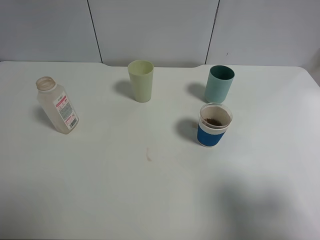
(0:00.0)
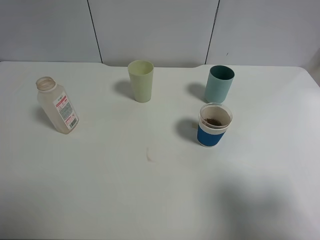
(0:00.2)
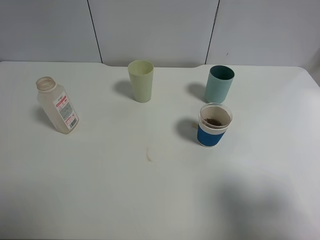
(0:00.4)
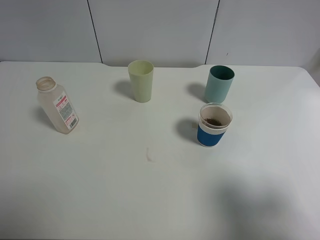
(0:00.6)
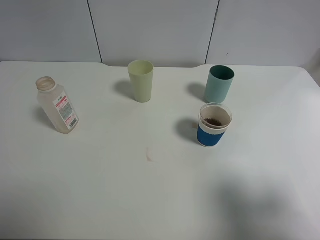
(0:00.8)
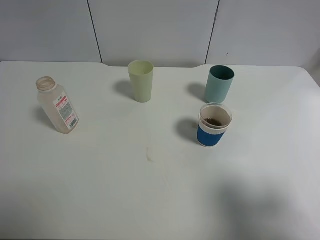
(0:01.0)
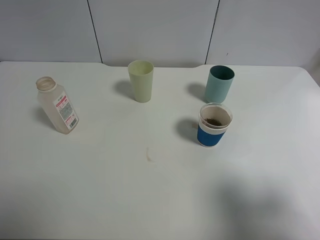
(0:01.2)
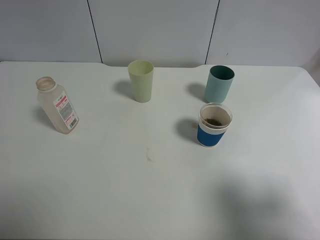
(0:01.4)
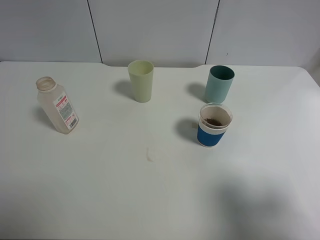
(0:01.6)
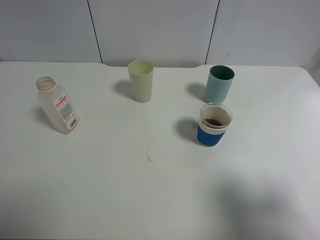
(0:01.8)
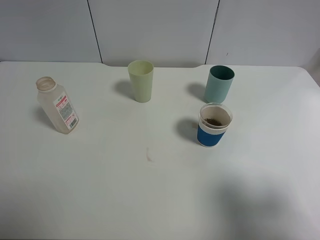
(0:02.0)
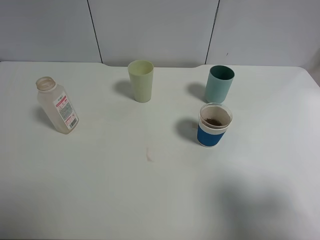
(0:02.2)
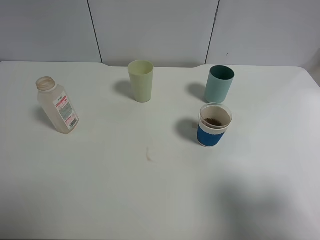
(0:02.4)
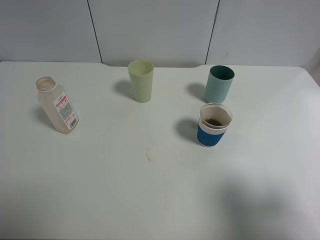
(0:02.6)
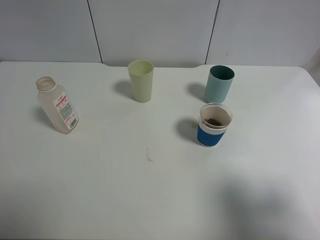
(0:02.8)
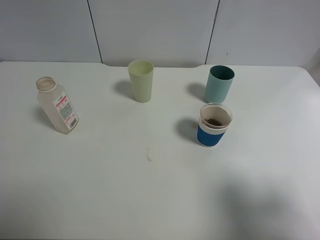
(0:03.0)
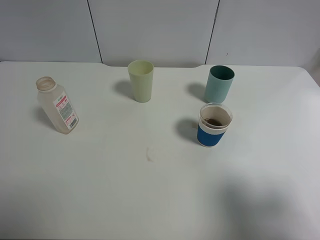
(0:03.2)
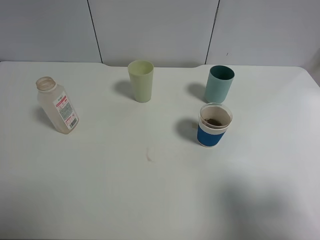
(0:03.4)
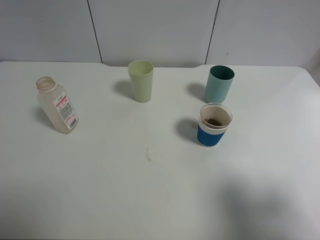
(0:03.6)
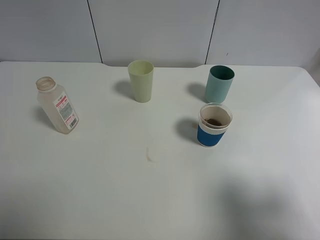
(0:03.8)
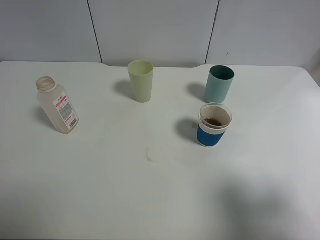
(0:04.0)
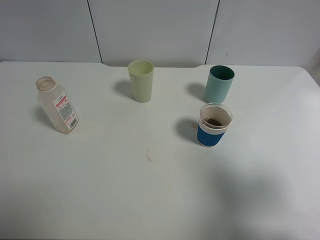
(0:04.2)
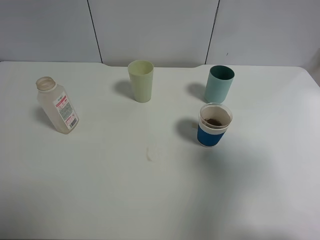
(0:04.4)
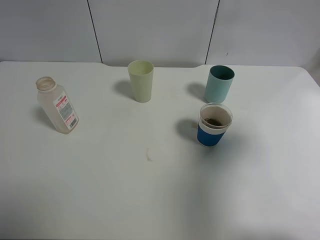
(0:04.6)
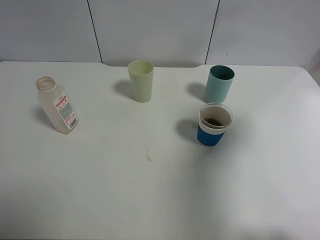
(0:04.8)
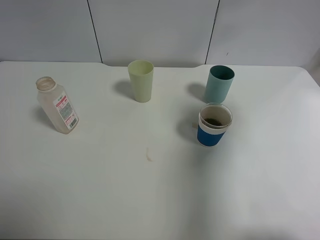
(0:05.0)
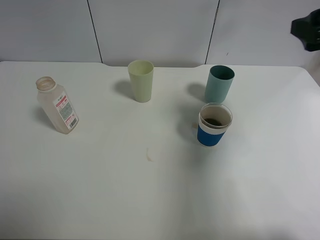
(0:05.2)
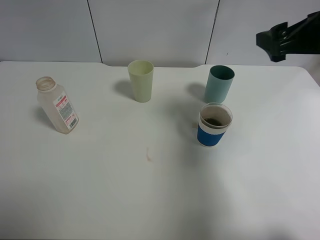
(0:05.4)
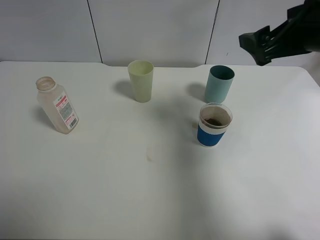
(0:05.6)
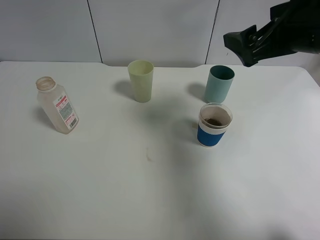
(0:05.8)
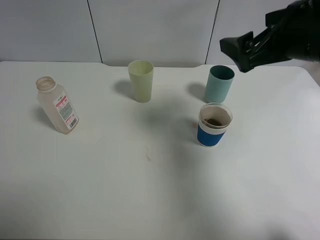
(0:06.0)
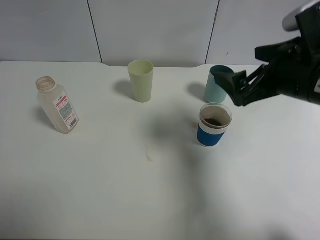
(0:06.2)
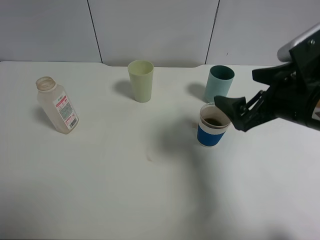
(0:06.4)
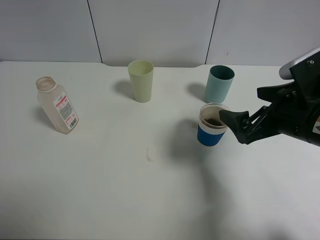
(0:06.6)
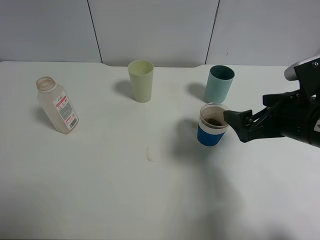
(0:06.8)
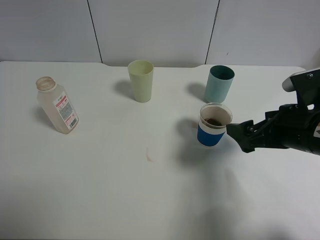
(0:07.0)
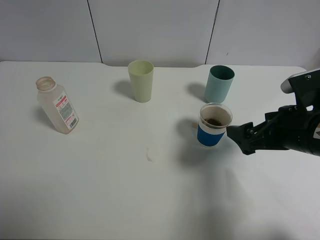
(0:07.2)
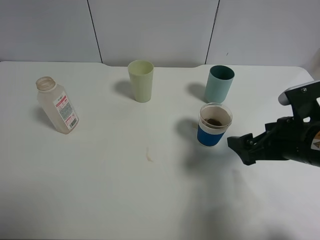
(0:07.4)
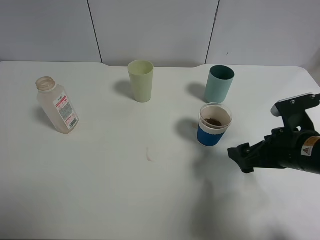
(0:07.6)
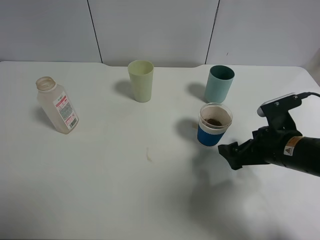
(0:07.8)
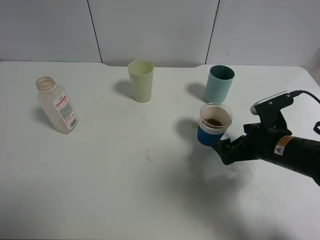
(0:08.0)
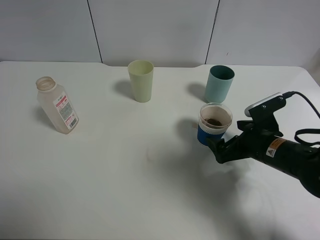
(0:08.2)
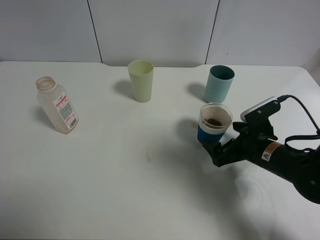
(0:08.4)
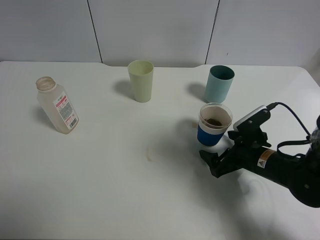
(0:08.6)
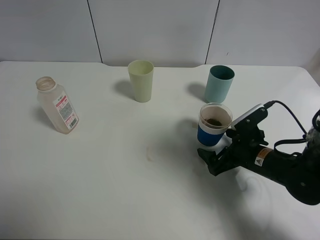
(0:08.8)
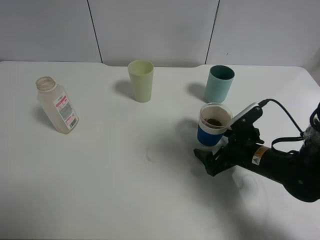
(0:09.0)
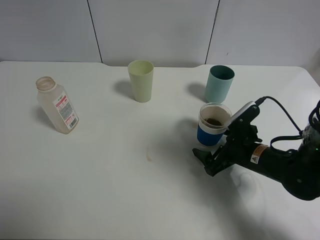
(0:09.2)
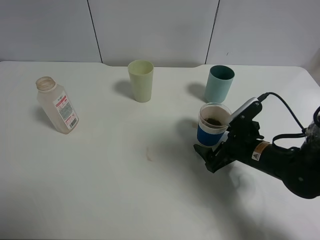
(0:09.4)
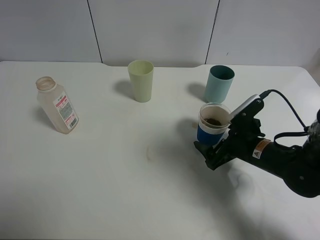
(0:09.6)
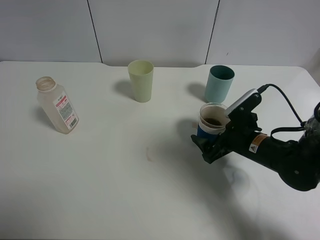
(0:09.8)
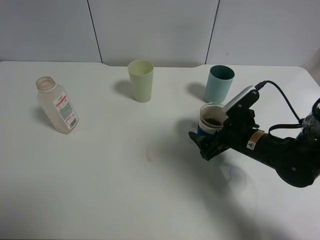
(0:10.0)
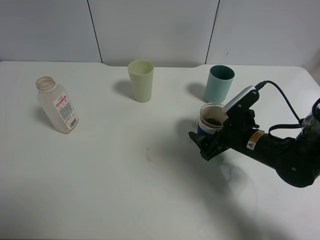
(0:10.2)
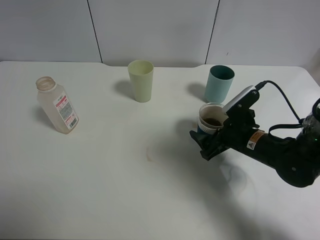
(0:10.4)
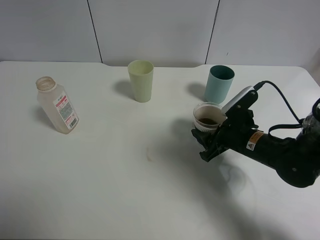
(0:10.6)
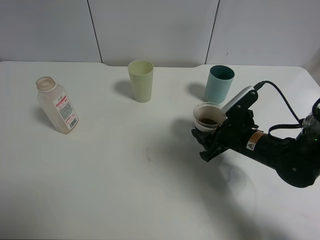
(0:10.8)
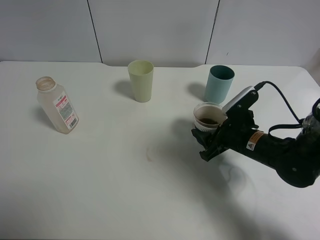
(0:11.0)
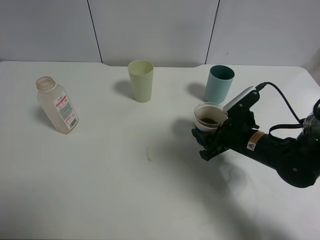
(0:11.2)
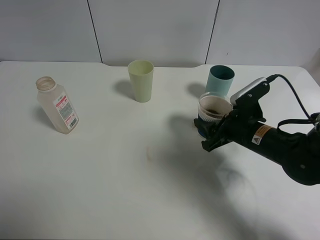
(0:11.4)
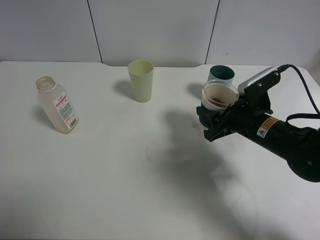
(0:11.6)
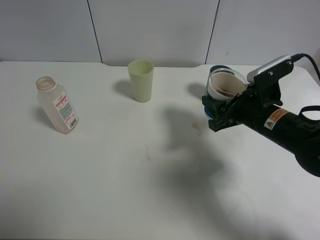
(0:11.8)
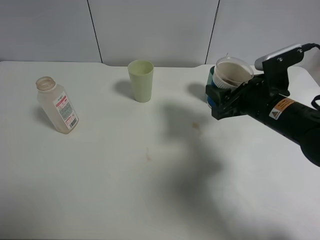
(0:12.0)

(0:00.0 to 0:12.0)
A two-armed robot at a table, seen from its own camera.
Task of the whole recording: use a clamp to hold the bottle of the drink, pour the beverage into a random cup, then clamp the cup containing the drink and pour the drink into another random cup.
Step, 0:00.0 - 0:11.2: Pick up the paper cup with right gripper.
0:01.6 - 0:03.0: The two grippers keep their place.
0:03.0 - 0:04.4: The right gripper goes approximately 5 cm forward.
0:04.4 - 0:06.0: The right gripper moves forward and to the left, roughly 20 cm.
0:06.0 - 0:07.6: The right gripper travels downward by about 15 cm.
0:07.6 - 0:09.0: The right gripper shifts roughly 10 cm downward.
0:09.0 - 0:10.4: The right gripper closes.
0:10.4 - 0:12.0: The right gripper moves upward, about 10 cm, and closes up.

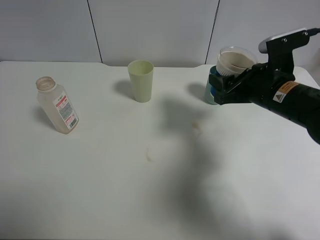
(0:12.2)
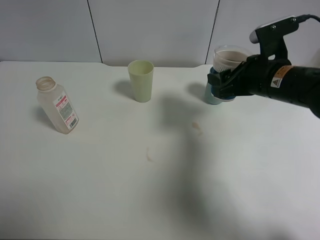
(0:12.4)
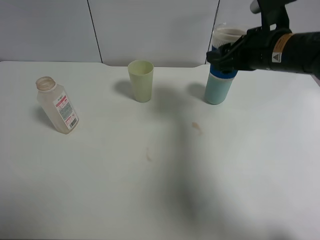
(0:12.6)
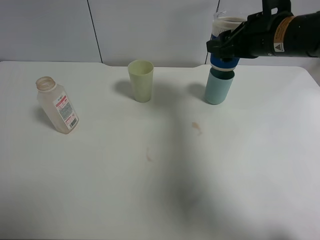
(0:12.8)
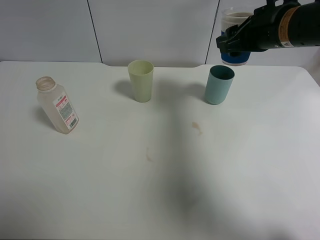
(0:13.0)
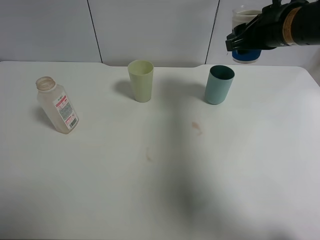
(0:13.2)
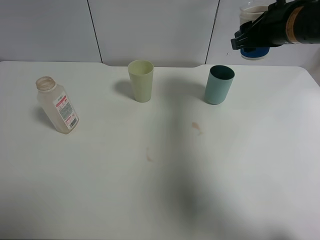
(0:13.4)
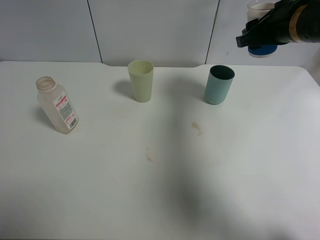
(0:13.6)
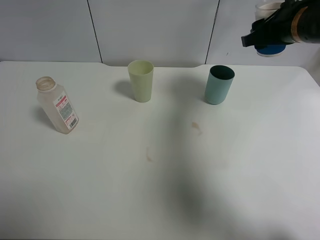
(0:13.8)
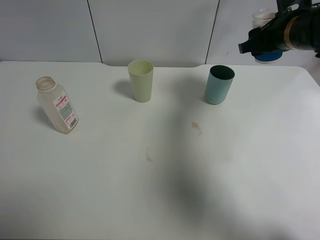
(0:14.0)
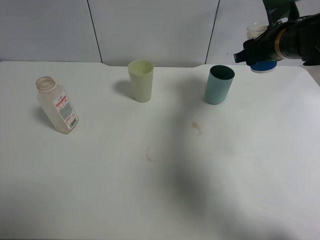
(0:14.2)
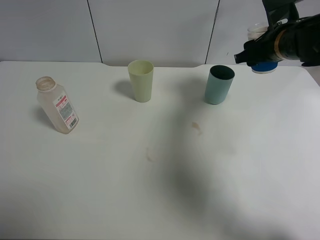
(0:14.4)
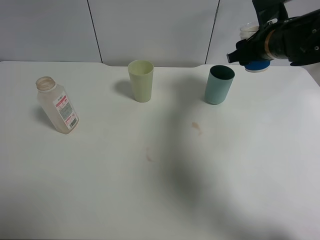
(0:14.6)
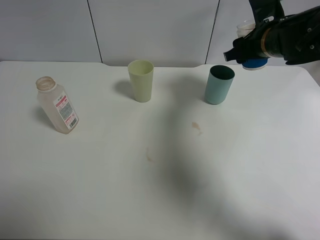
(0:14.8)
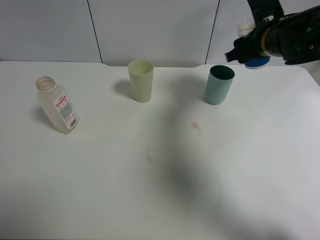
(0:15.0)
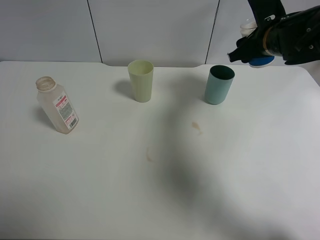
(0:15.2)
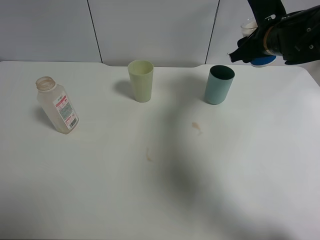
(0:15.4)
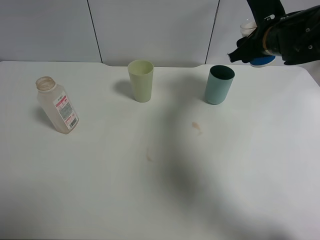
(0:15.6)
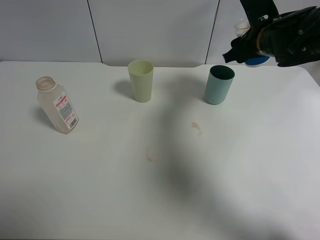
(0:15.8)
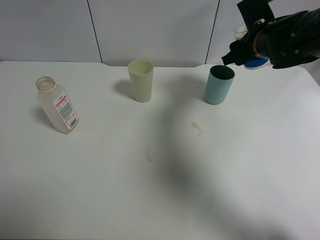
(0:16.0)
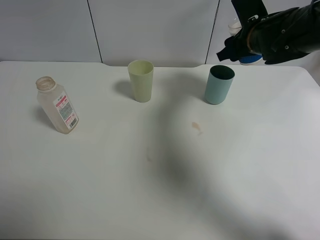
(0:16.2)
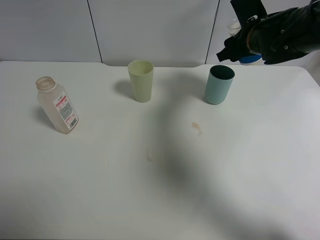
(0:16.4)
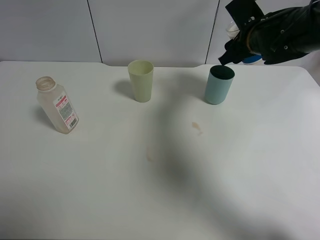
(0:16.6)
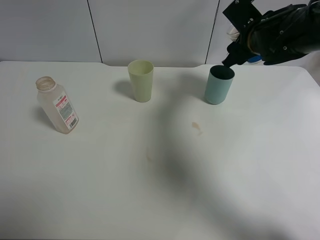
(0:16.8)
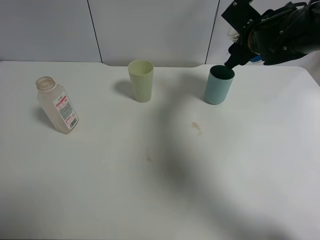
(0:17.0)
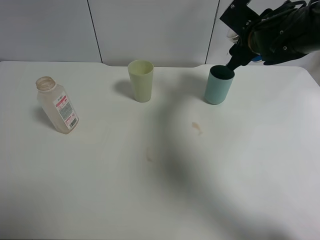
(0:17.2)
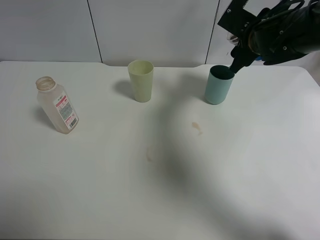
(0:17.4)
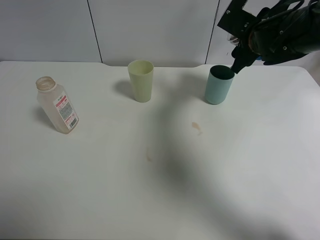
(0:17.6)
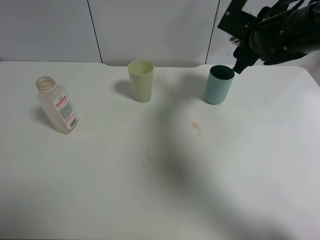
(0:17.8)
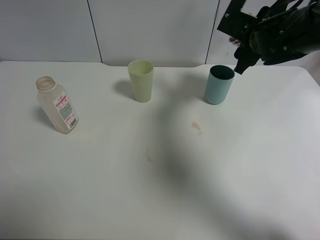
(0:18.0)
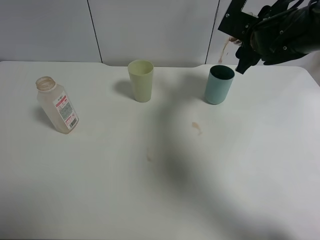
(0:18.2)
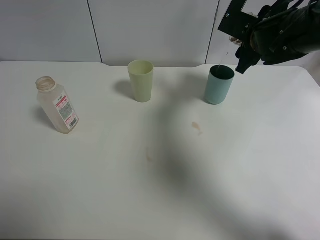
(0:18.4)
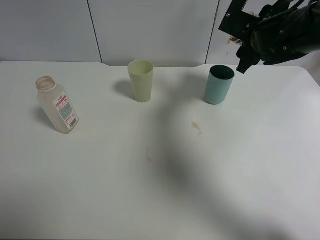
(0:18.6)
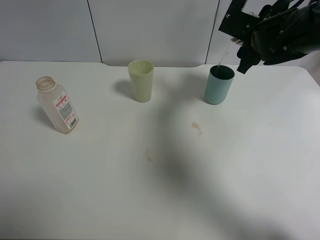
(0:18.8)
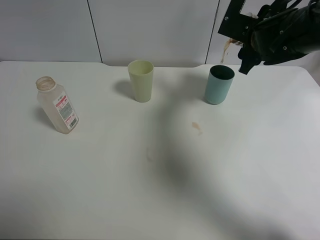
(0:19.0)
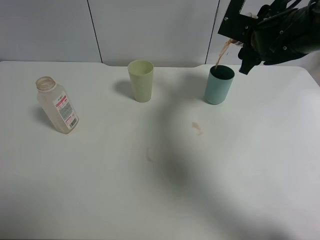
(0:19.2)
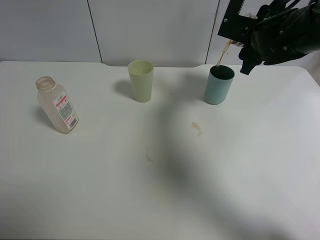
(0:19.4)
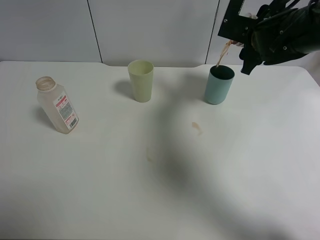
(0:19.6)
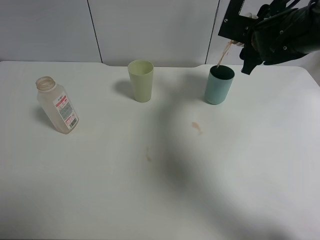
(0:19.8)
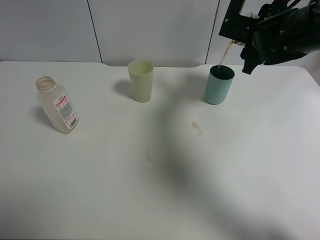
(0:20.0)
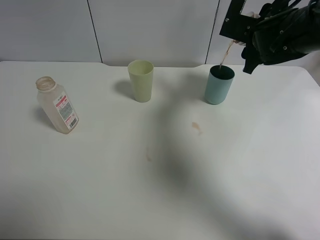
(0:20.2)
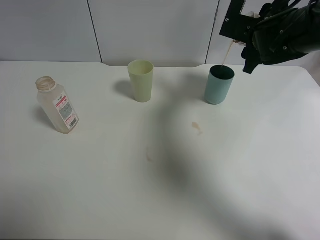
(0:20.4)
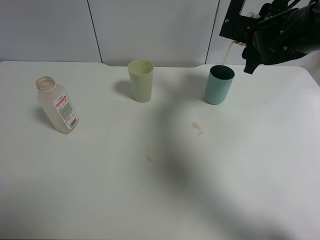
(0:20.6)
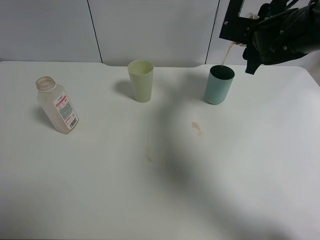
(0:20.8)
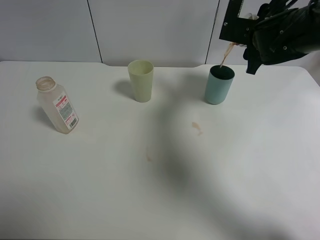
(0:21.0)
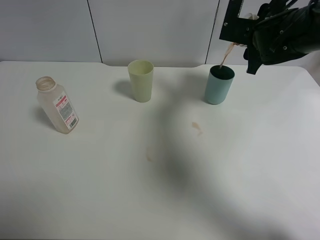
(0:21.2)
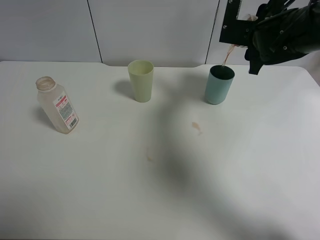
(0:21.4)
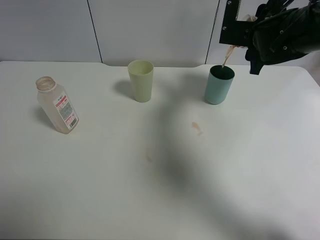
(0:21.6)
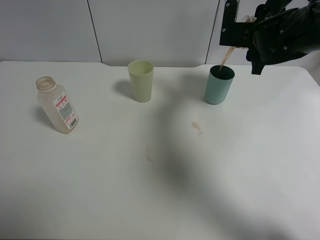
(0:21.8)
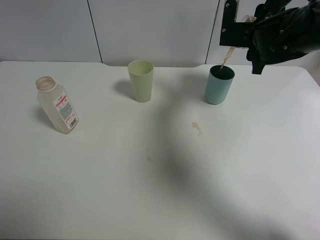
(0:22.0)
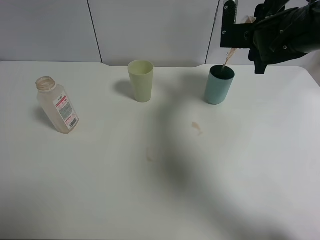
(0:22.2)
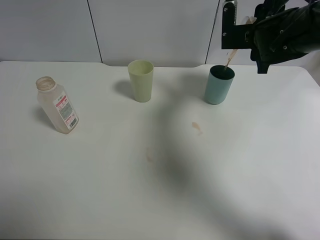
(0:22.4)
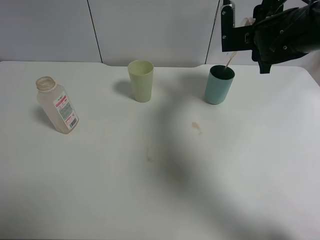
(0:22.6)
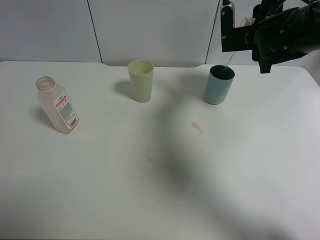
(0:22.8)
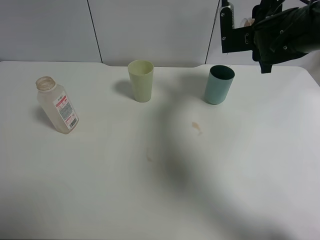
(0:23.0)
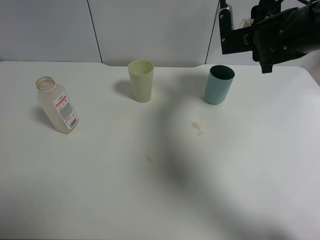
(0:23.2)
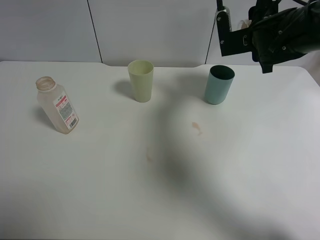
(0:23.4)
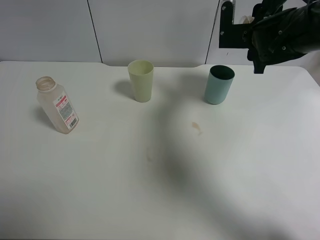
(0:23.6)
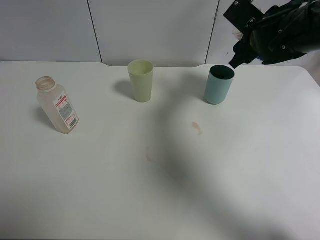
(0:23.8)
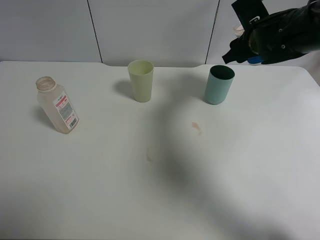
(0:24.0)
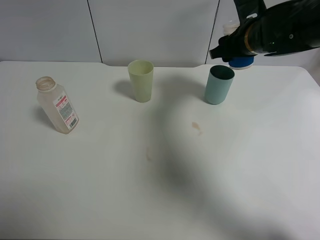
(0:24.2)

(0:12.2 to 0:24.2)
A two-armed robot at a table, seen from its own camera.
Task of the whole recording: use a clamp to hold the bottle of the drink, pour the beverage into a random cup, then clamp the cup containing the drink and pour the drink into another random cup.
Step, 0:12.2 - 0:23.2: Pour the drink into the blue plastic cup with right gripper.
0:12.2 - 0:13.8: The right gripper heads upward and forward, covering approximately 10 cm.
0:13.8 - 0:15.2: The grippers make only small movements.
0:15.2 - 0:16.6: There are only small adjustments of the grippers.
0:18.2 - 0:19.8: The grippers stay close to where they were, moving slightly.
0:21.2 - 0:22.6: The grippers move only a little.
